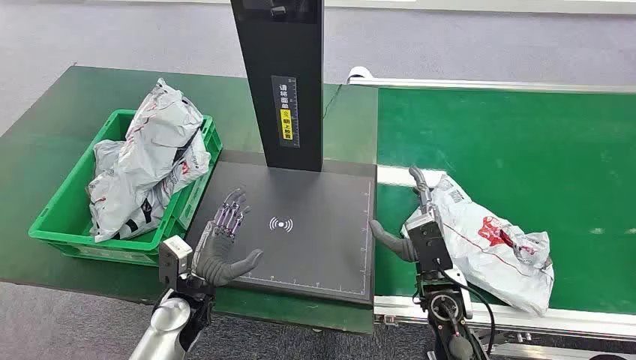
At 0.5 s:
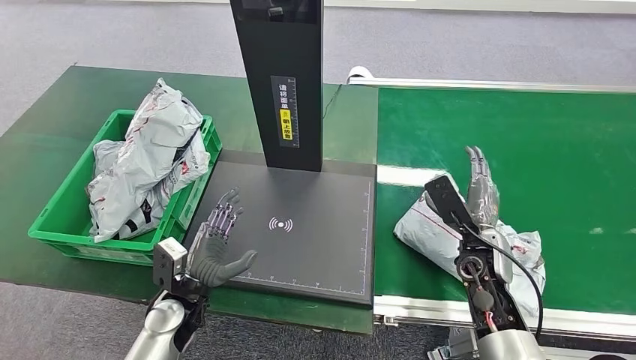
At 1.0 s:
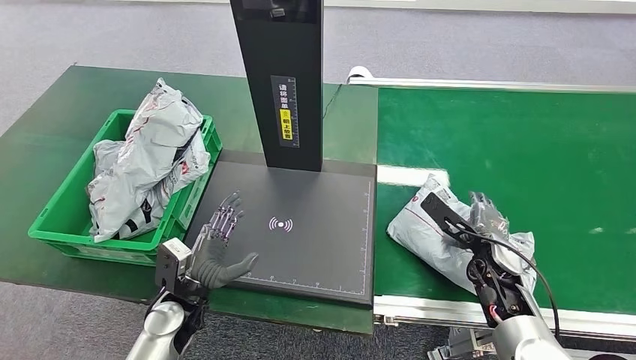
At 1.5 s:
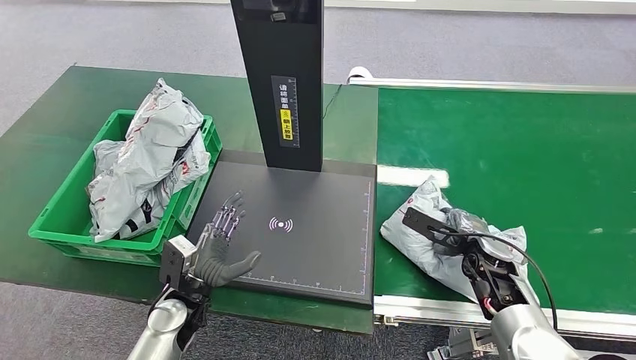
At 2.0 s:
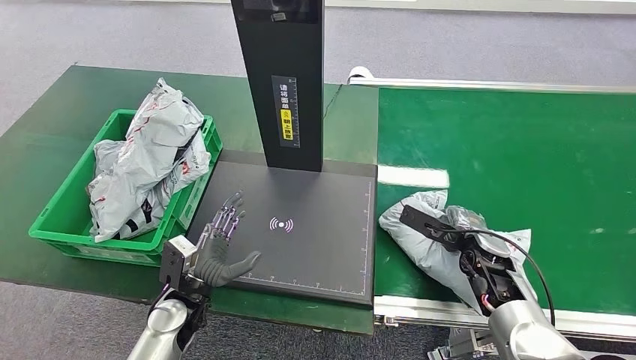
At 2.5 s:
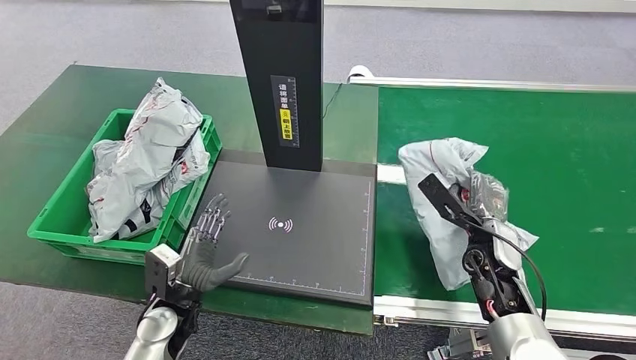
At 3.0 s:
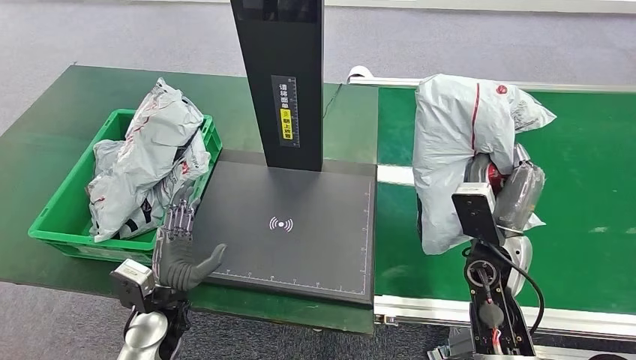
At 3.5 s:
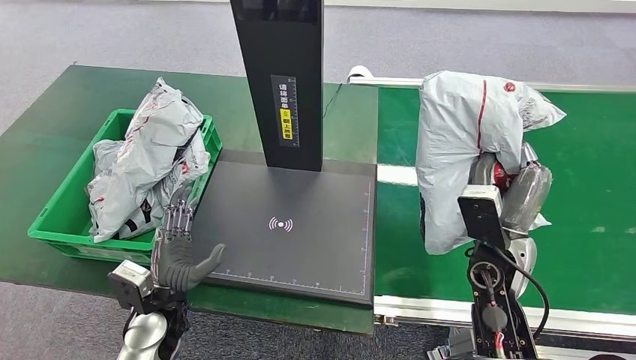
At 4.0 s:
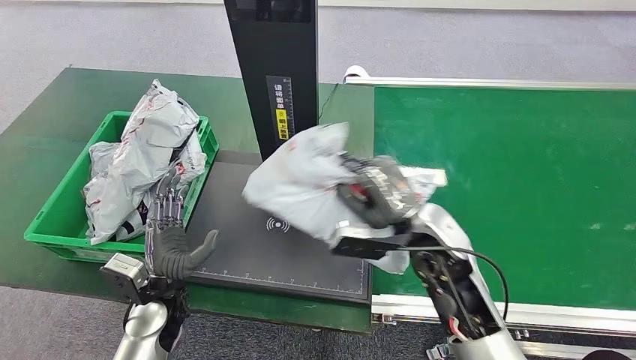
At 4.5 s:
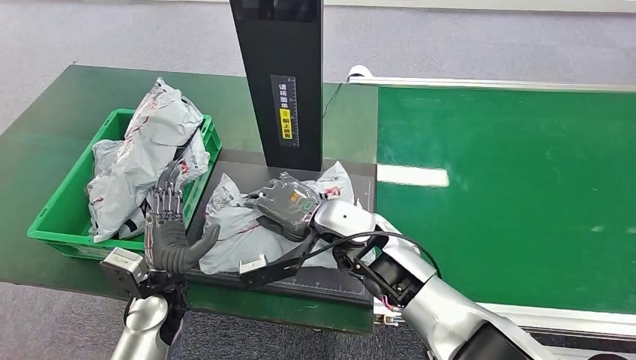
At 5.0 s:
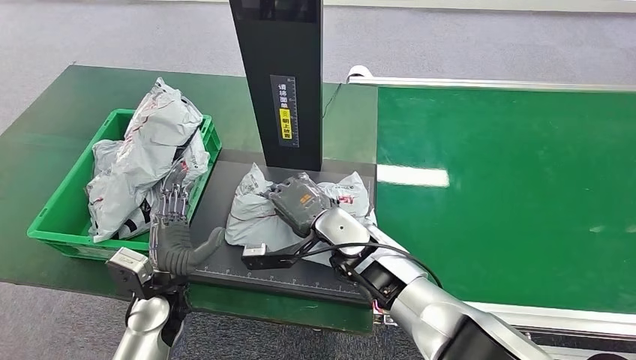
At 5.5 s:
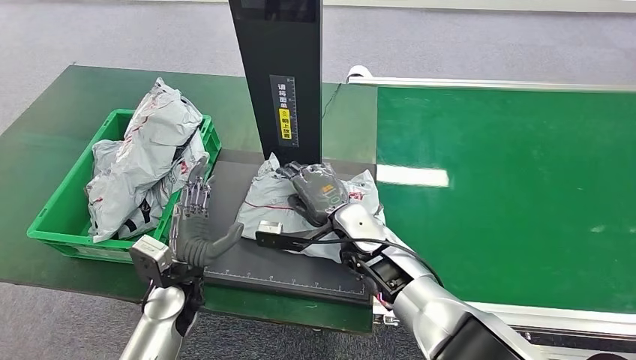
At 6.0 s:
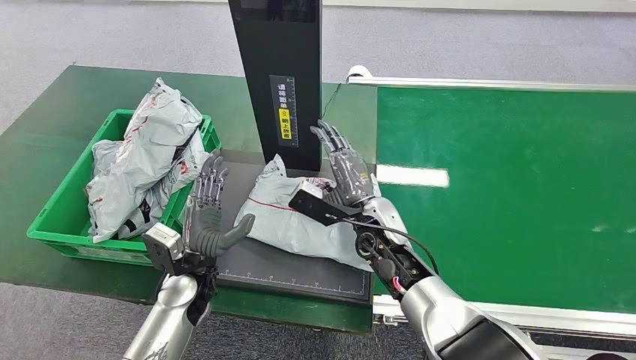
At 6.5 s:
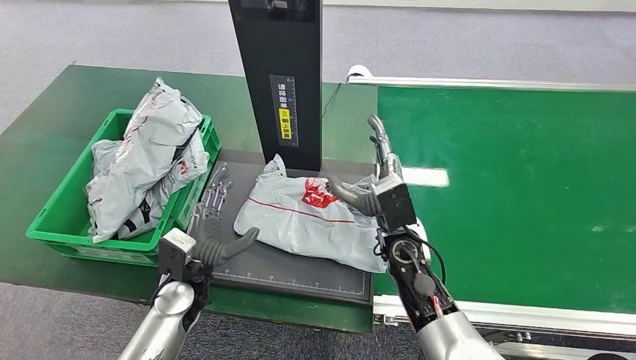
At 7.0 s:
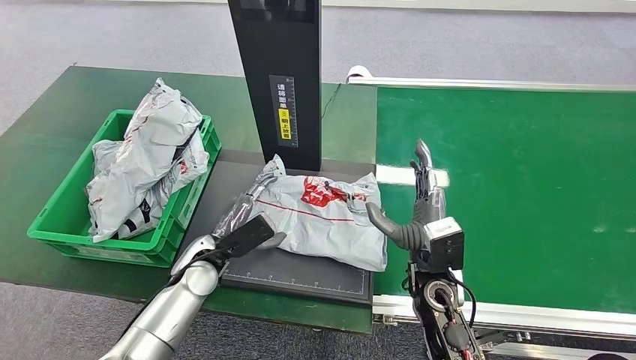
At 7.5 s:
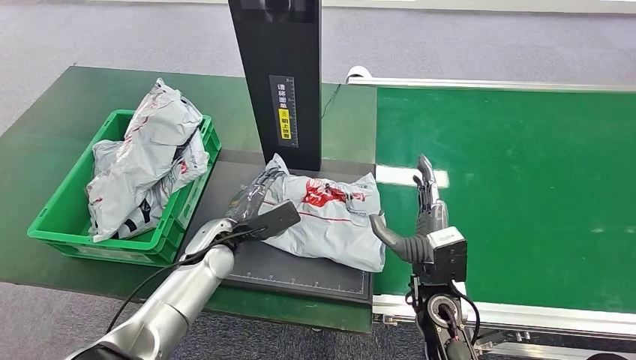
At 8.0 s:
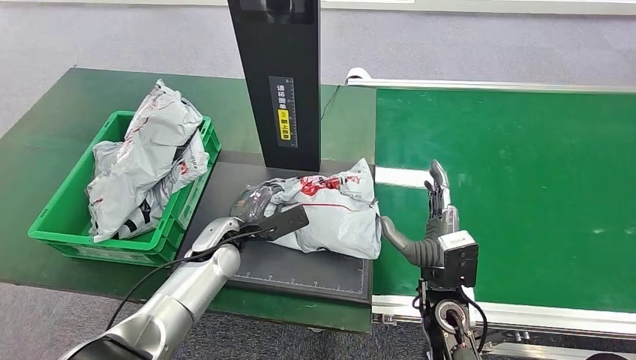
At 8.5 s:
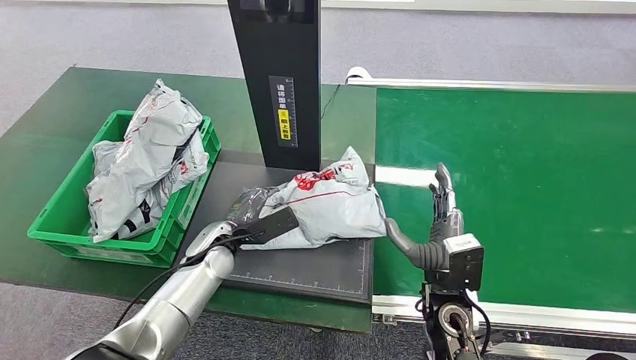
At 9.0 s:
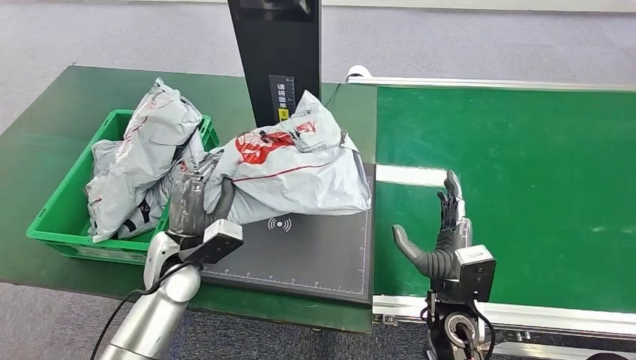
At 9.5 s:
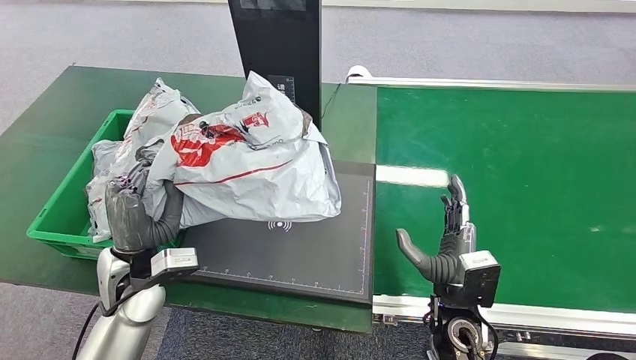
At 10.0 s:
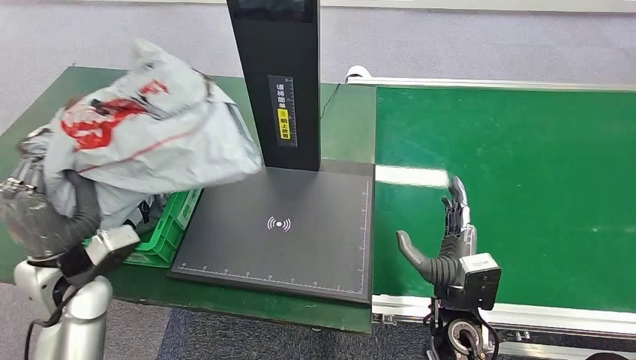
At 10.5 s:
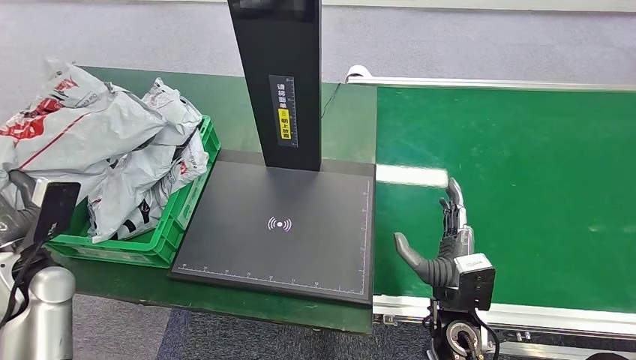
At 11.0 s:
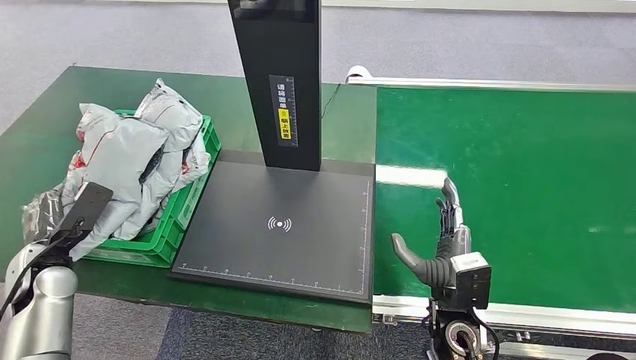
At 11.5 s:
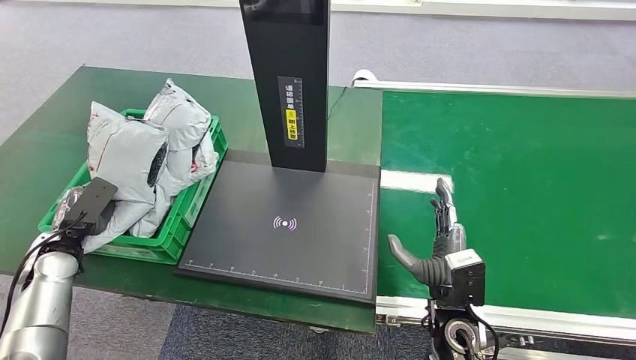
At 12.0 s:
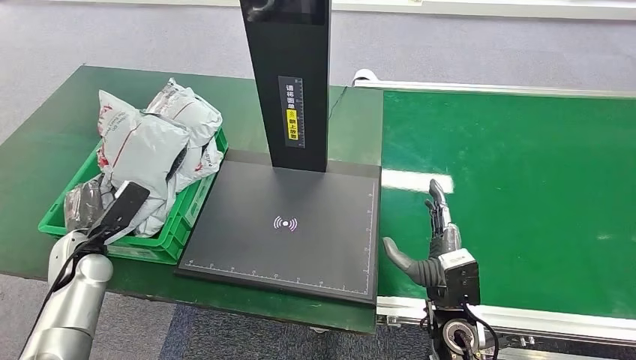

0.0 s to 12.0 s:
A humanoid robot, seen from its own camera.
Step, 0.0 to 2.5 s: Pick up the package from the conveyor belt.
Step, 3.0 to 6.5 s: Place the package onto the inbound machine.
Step, 7.0 to 8.5 s: Pick up the package from the inbound machine.

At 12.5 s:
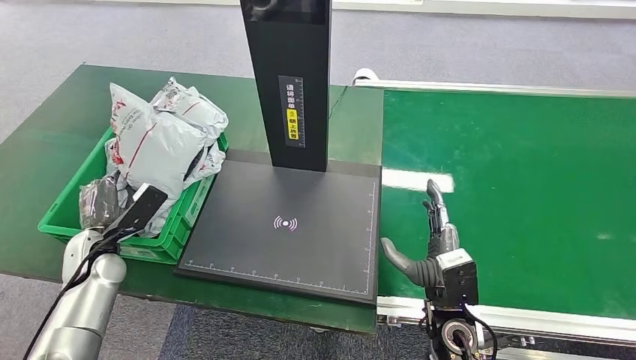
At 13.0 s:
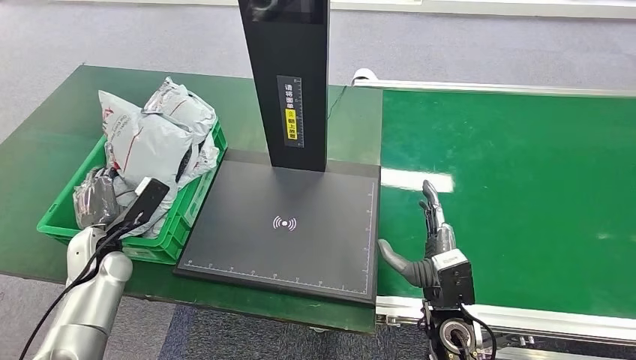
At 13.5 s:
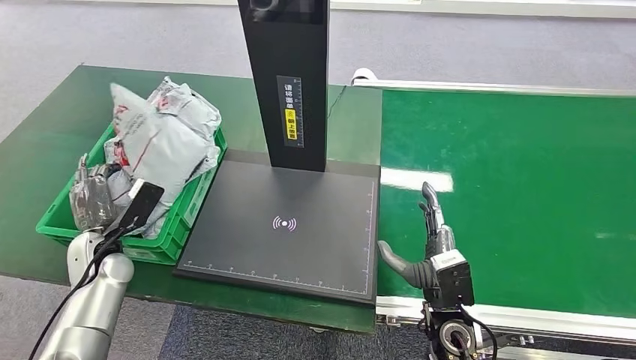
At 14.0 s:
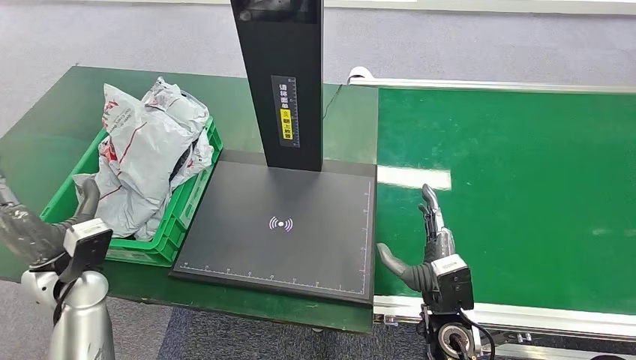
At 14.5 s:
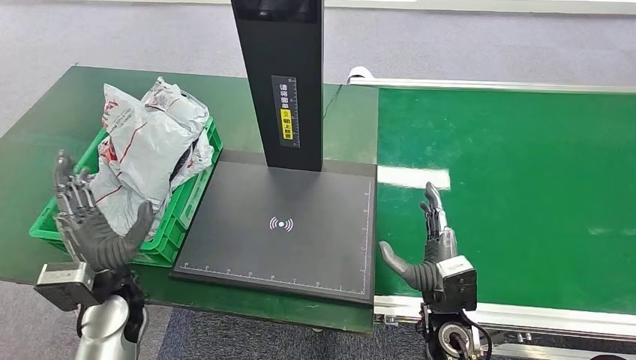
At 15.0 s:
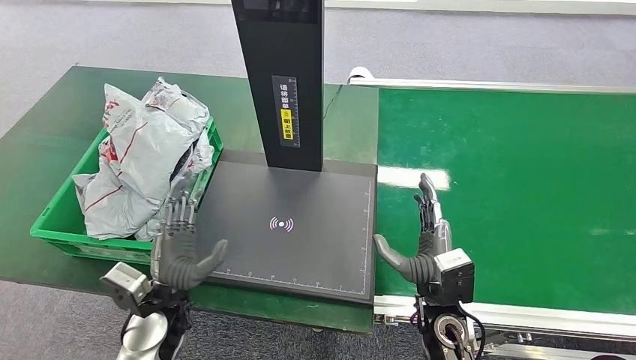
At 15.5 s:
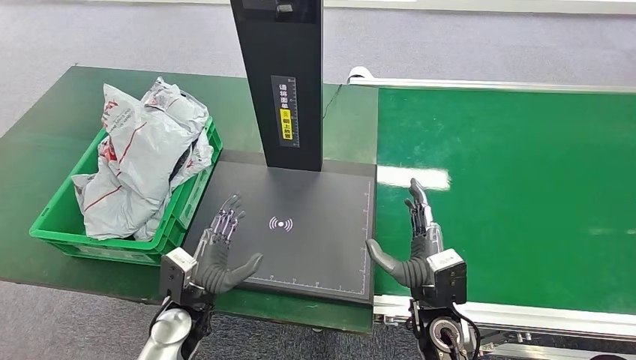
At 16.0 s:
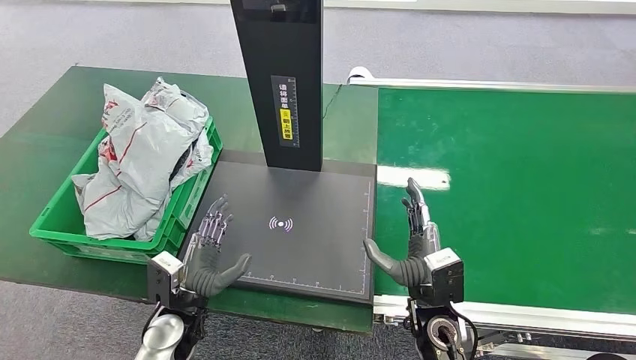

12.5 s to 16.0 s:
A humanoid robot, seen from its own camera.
Step, 12.5 to 16.0 s: Place the package into the parcel locker.
14.5 to 16.0 s: The left hand is displaced downward and to the right by some 10 cm.
